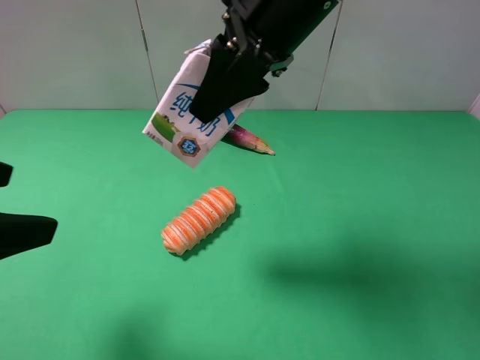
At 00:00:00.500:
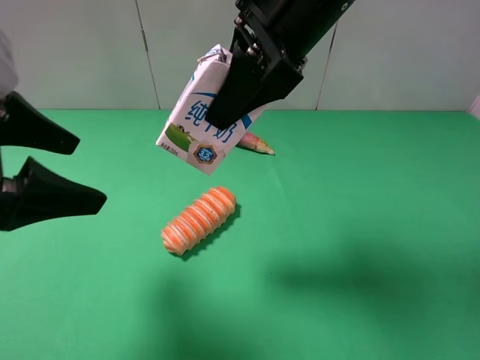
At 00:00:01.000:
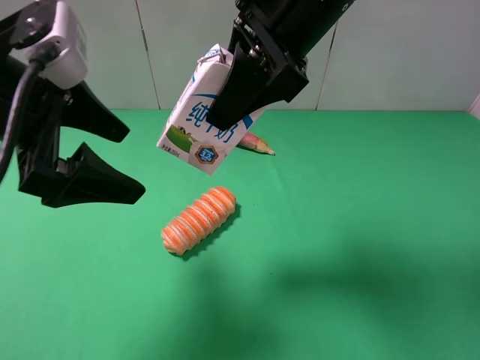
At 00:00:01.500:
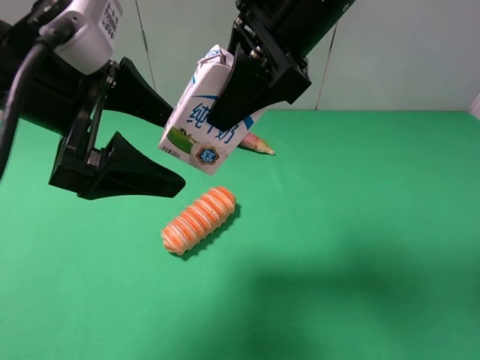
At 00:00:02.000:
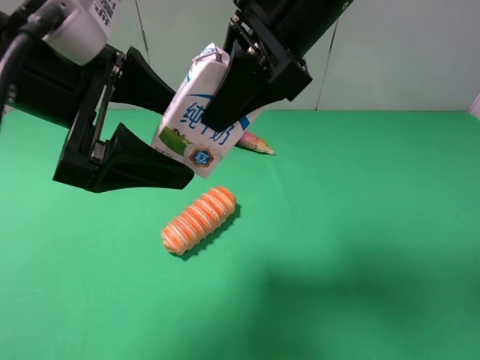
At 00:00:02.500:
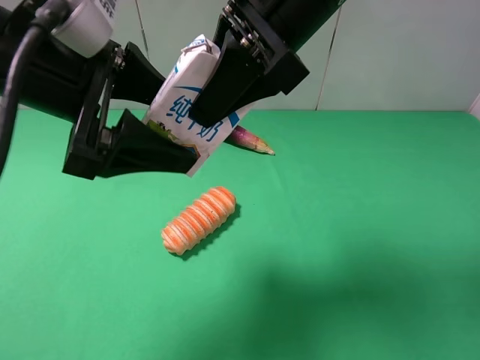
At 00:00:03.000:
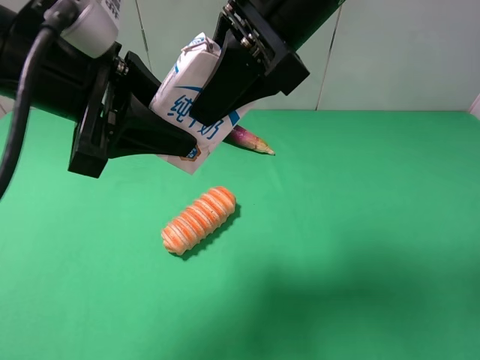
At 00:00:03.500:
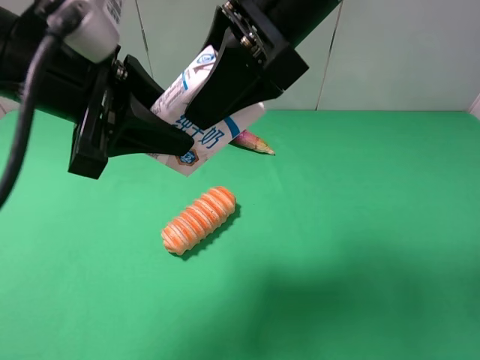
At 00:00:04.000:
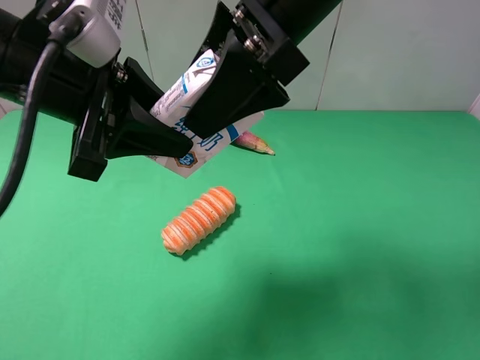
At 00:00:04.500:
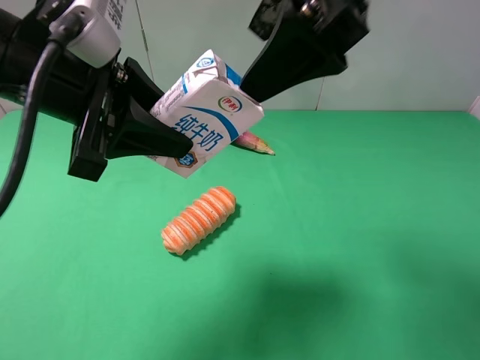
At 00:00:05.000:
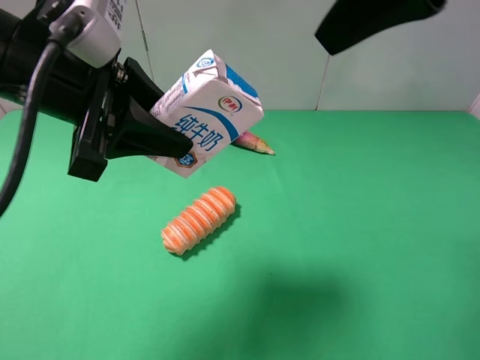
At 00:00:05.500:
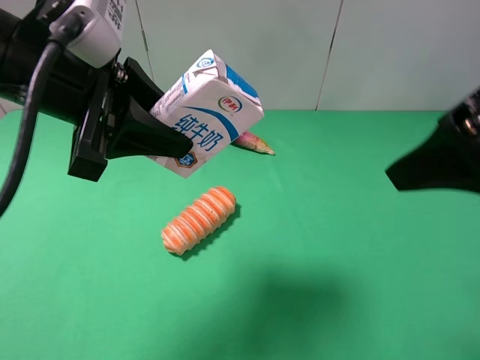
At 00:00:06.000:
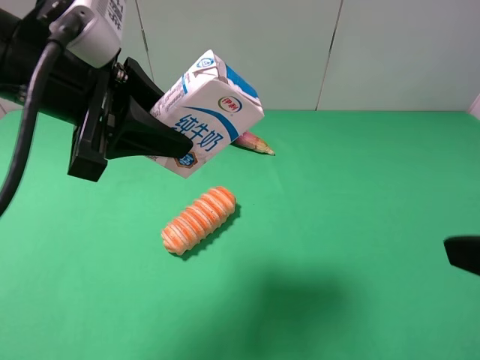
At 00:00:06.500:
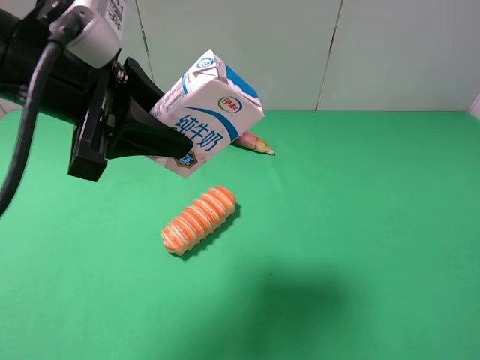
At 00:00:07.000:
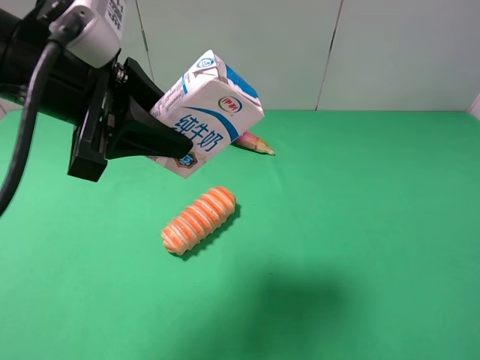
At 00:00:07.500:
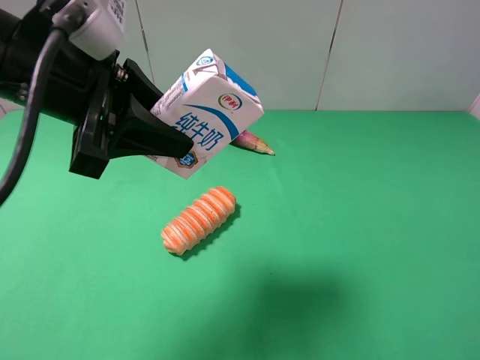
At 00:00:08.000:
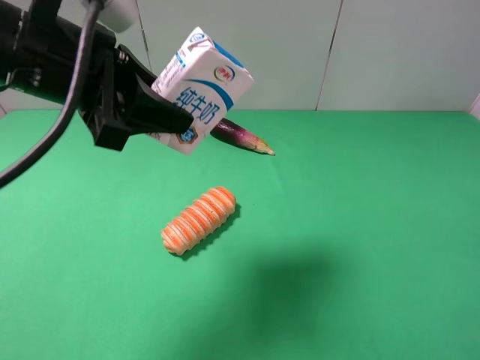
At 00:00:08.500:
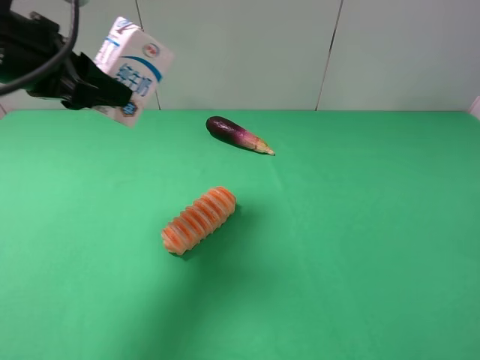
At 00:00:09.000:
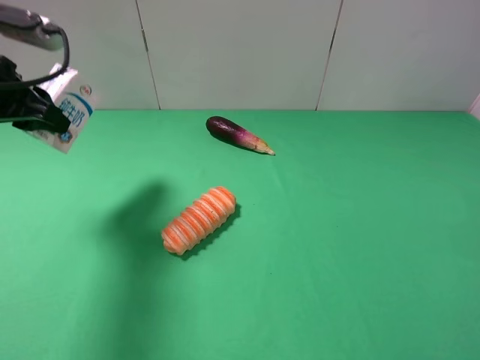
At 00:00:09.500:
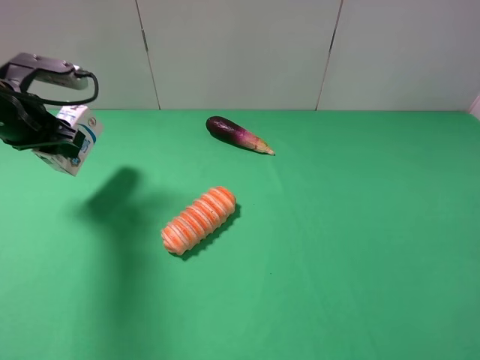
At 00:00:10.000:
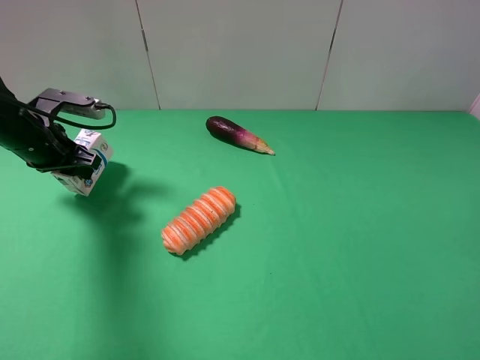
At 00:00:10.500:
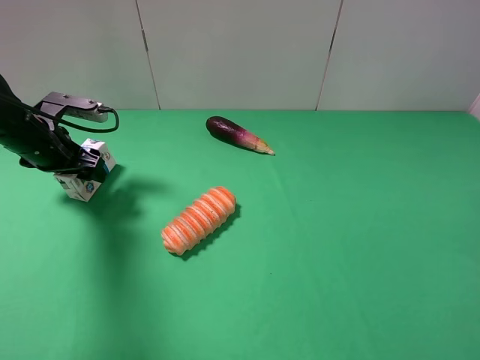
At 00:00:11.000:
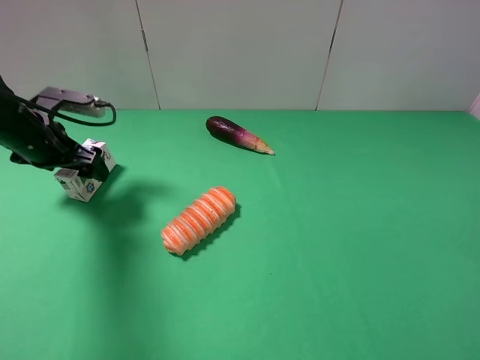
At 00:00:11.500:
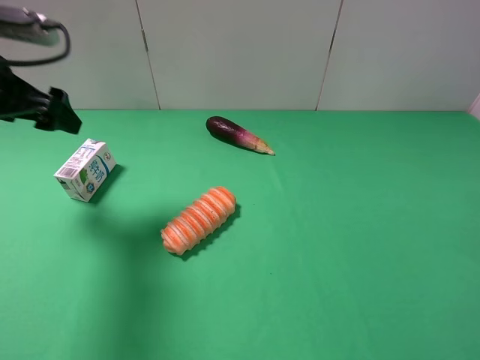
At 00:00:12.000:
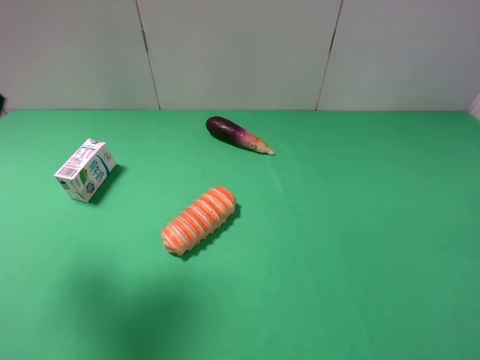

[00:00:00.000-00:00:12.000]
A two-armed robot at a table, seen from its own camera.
Task of the whole recording: use the right gripper to pick up the item and transfer it from the right gripper to the left gripper.
Step, 00:00:00.000 to 00:00:04.000: Pass the milk to the left gripper.
Step, 00:00:04.500 to 00:00:11.000: The left gripper places milk on the left side of the table.
00:00:00.000 to 00:00:02.000: The left gripper travels forward and to the right by about 15 cm.
00:00:02.000 to 00:00:04.000: The right gripper opens up; the left gripper closes its fingers.
00:00:04.000 to 00:00:06.000: The right gripper is displaced to the right and backward by about 30 cm.
00:00:06.000 to 00:00:08.000: The right gripper ends up some 5 cm from where it was.
00:00:08.000 to 00:00:10.000: The left gripper travels downward, to the left and forward by approximately 25 cm.
00:00:10.000 to 00:00:12.000: The left gripper shifts approximately 25 cm upward and backward, and opens.

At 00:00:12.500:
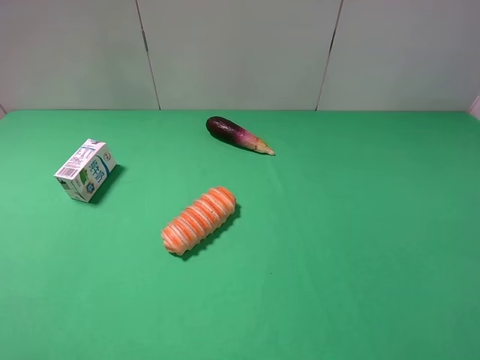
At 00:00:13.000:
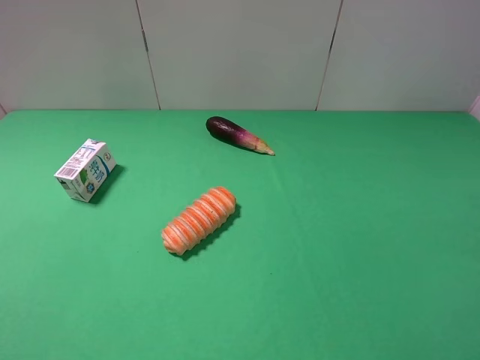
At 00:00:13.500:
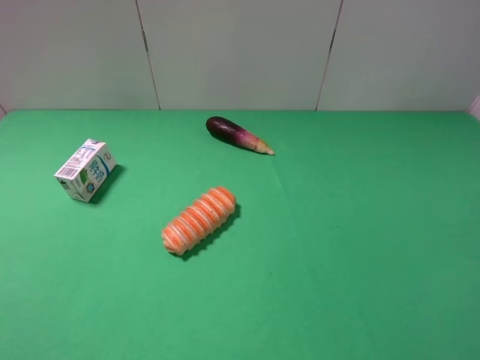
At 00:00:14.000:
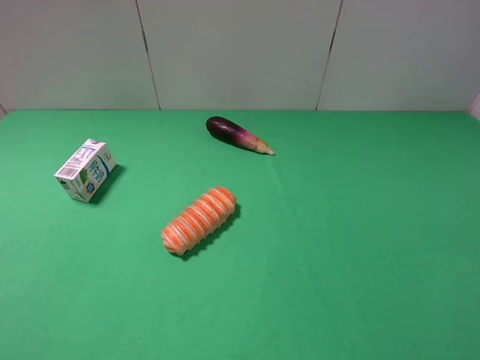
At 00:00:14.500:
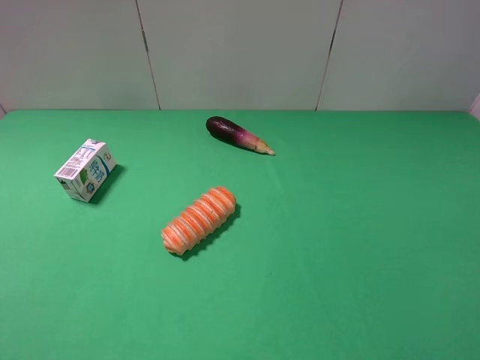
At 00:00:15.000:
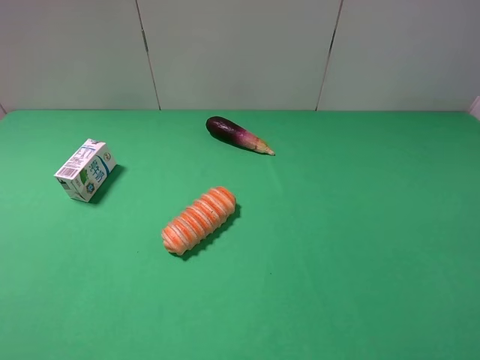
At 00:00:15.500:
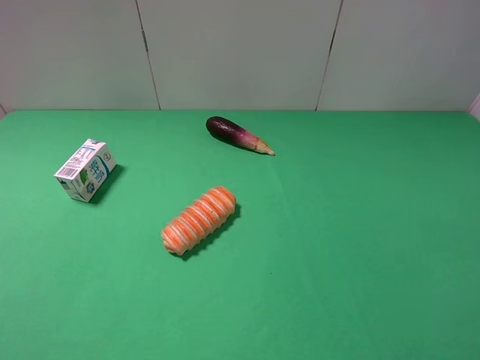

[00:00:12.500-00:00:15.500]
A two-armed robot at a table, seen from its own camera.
Task of the whole recording: use the right gripper to pick up the item and transfer it from the right gripper to the left gripper.
00:00:14.000 to 00:00:15.500: The two grippers keep their place.
